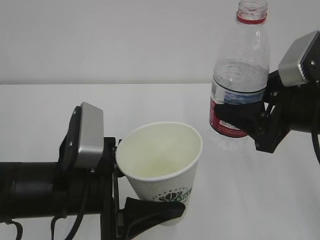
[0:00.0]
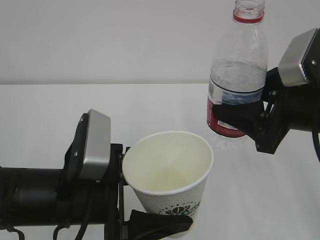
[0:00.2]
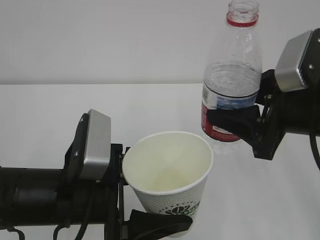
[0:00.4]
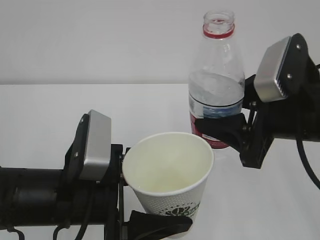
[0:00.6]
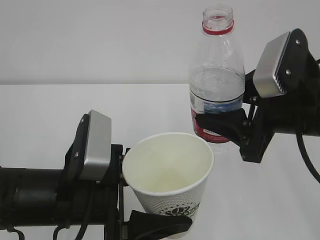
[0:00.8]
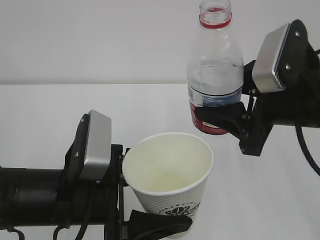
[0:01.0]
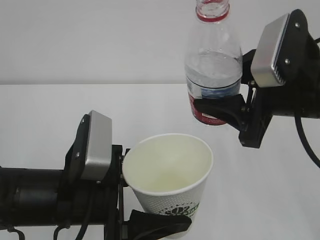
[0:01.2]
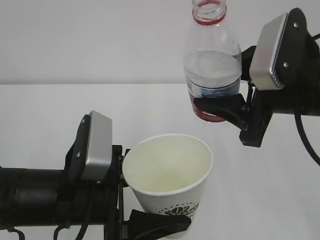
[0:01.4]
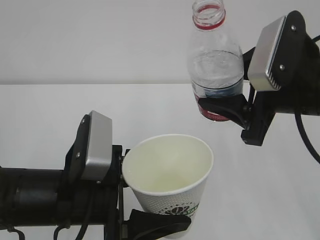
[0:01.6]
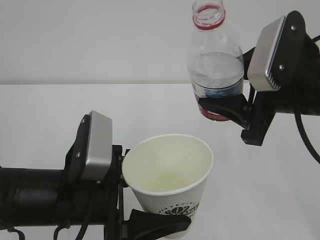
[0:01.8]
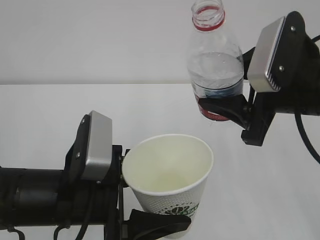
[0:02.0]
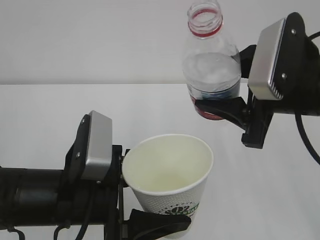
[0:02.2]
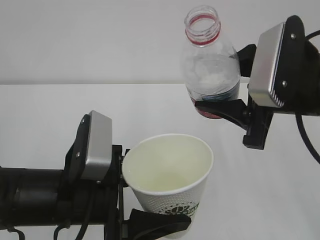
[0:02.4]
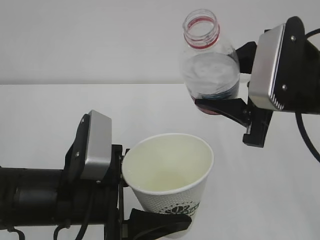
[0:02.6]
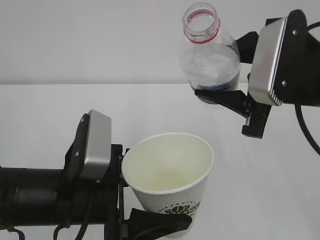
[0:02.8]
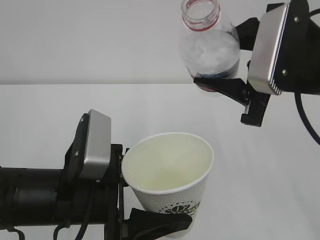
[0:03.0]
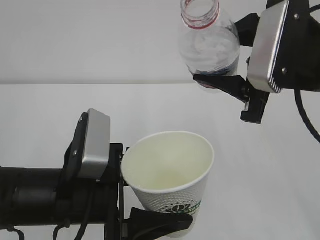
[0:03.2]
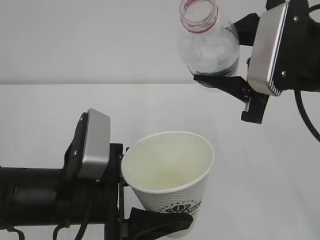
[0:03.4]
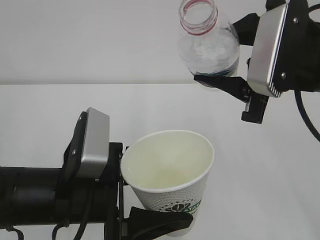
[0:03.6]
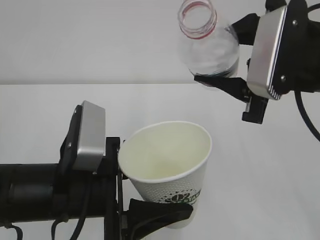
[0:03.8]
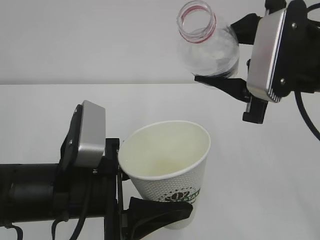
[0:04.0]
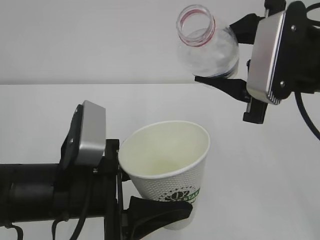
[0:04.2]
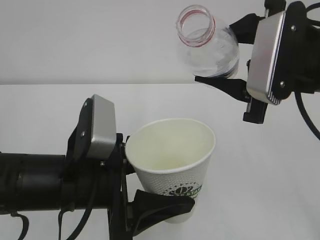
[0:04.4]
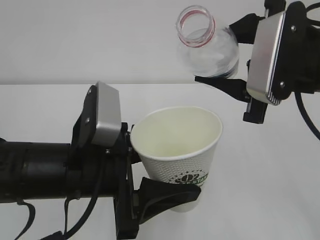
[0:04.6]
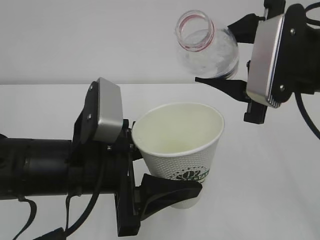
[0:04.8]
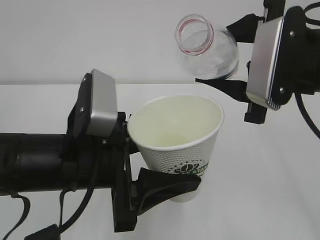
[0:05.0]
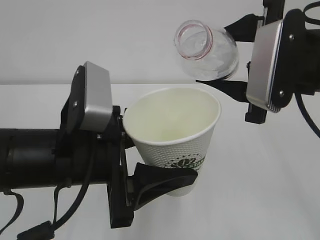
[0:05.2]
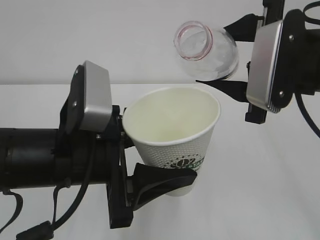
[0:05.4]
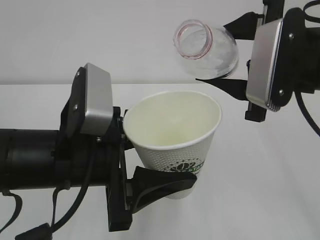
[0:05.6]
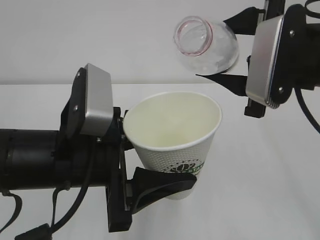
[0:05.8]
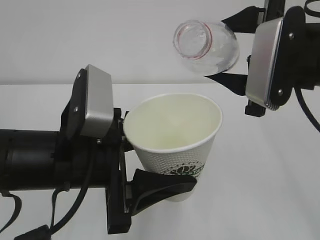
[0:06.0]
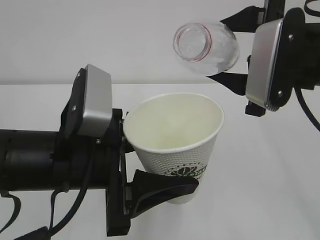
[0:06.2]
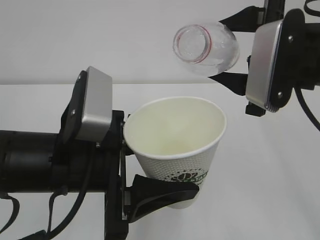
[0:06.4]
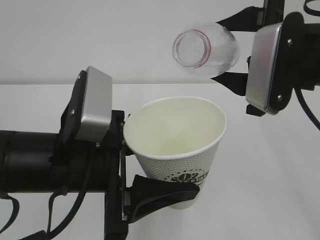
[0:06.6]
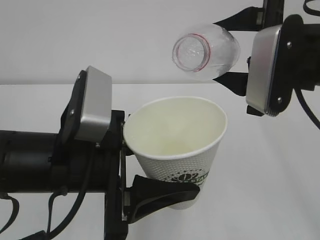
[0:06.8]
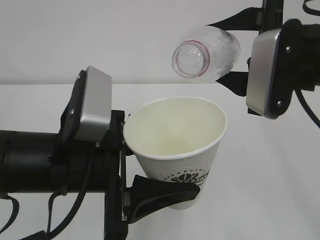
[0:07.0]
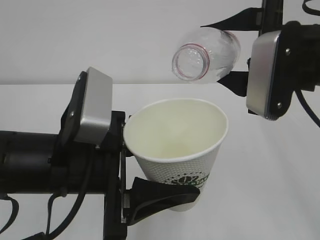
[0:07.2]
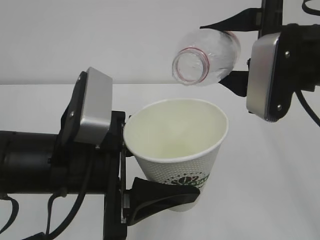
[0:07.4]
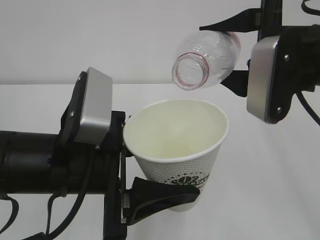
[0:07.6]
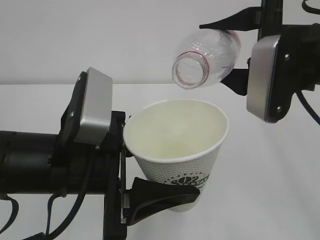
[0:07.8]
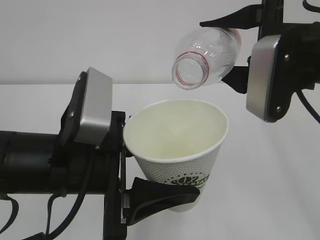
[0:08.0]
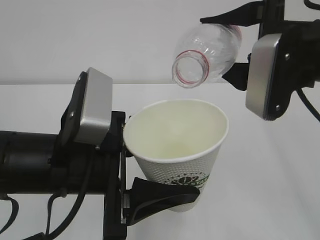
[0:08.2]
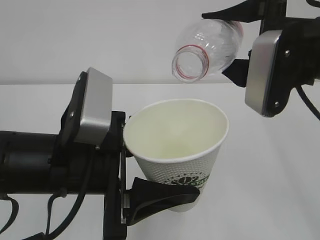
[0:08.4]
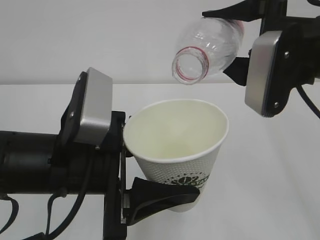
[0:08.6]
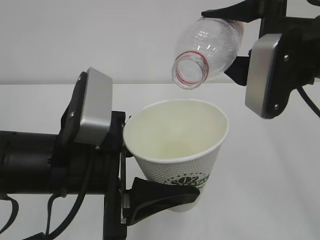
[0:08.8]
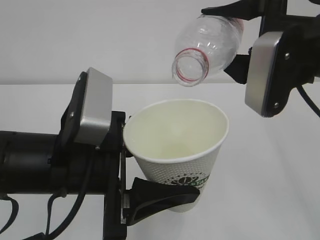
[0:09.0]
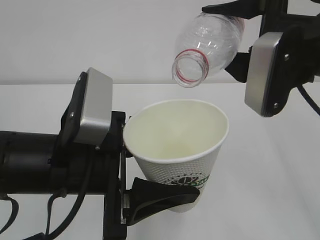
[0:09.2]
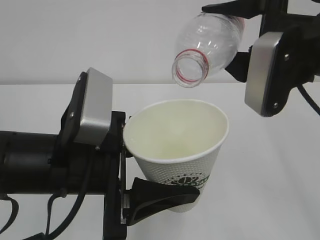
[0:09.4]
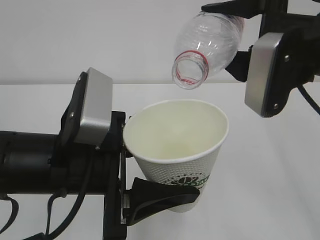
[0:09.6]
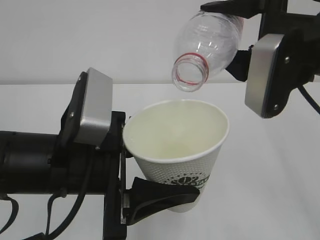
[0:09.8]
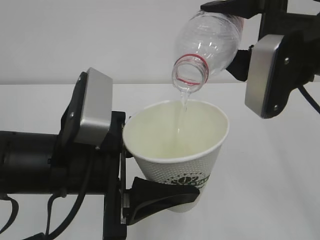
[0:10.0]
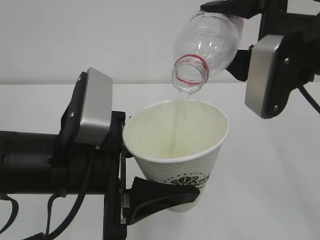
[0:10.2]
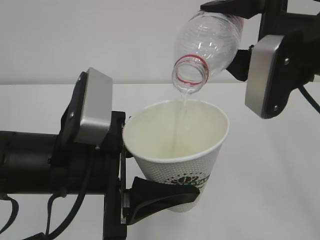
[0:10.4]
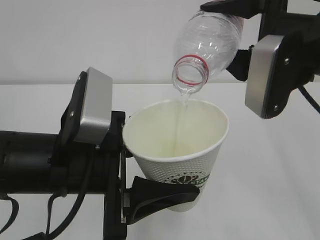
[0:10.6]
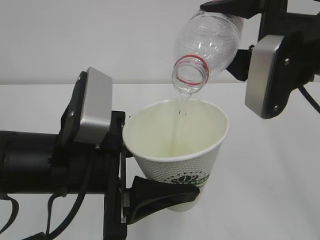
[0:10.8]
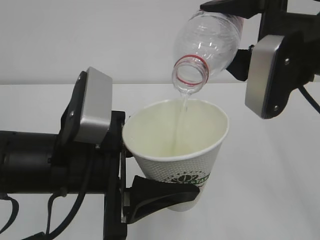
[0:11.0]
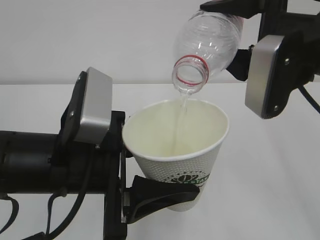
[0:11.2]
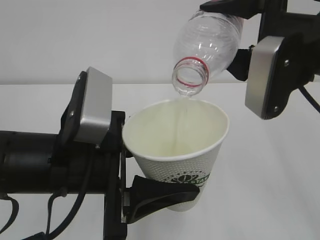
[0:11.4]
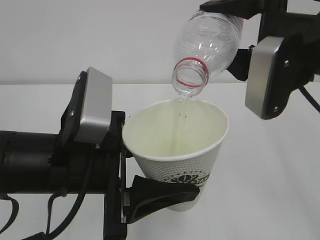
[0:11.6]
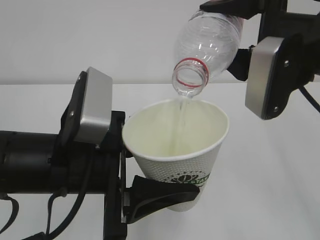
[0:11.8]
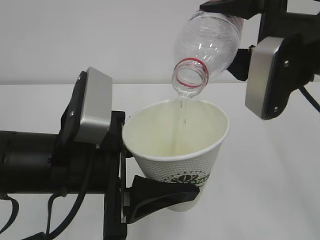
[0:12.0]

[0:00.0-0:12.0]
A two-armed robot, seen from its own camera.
0:01.6 to 0:03.0: The grippers make only small movements.
0:03.0 to 0:04.4: The grippers move only a little.
0:06.0 to 0:09.0: The grippers stay close to where they were, moving slightly.
0:09.0 to 0:10.4: The two grippers keep their place.
0:10.4 to 0:12.0: Both grippers stay put.

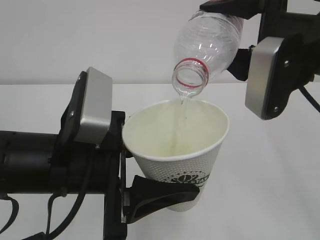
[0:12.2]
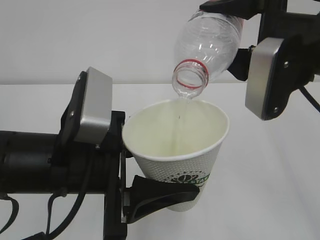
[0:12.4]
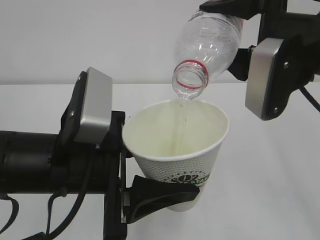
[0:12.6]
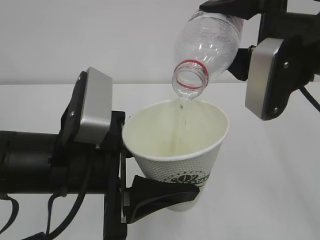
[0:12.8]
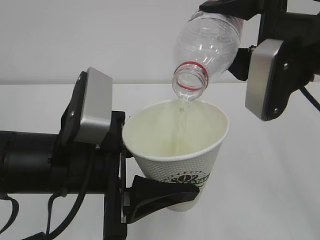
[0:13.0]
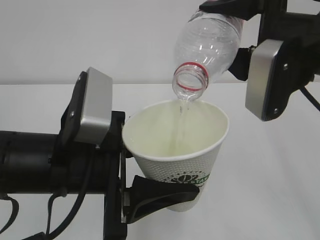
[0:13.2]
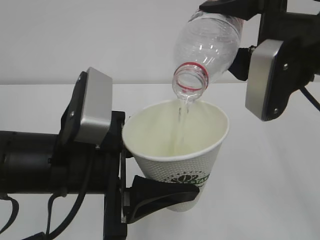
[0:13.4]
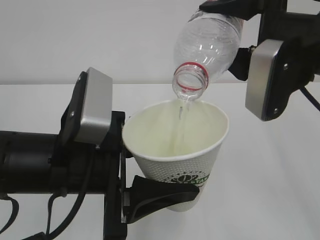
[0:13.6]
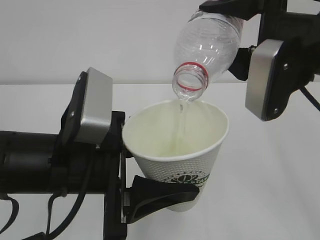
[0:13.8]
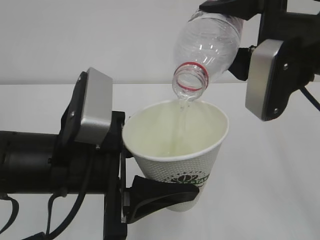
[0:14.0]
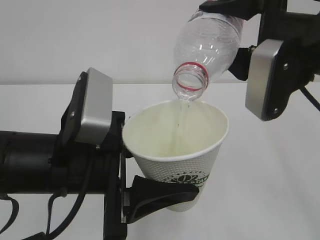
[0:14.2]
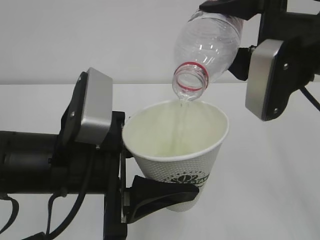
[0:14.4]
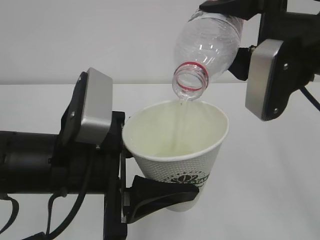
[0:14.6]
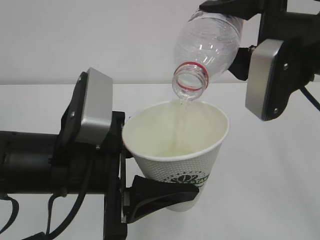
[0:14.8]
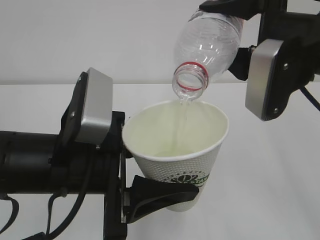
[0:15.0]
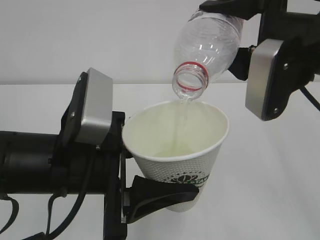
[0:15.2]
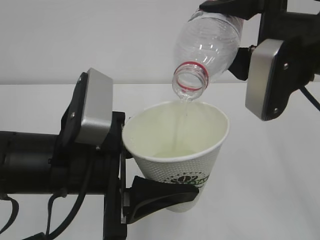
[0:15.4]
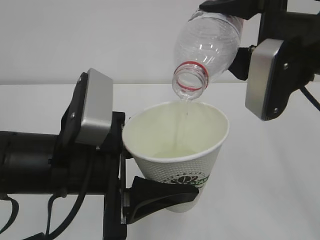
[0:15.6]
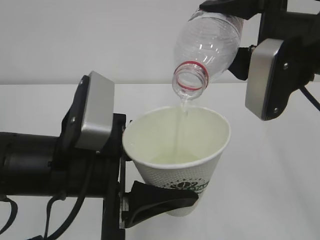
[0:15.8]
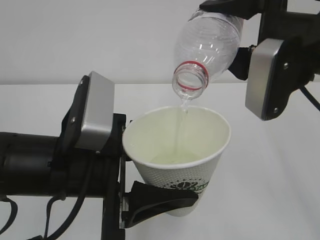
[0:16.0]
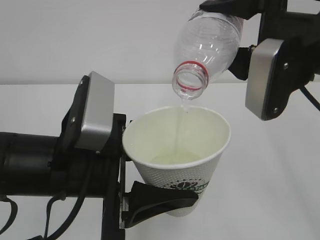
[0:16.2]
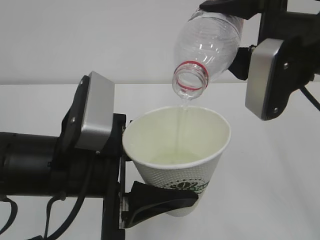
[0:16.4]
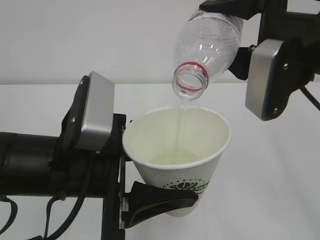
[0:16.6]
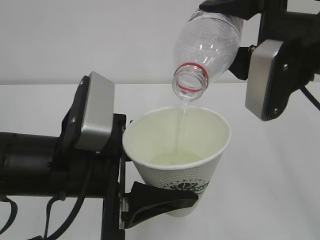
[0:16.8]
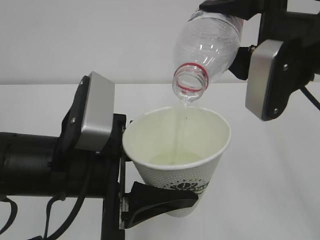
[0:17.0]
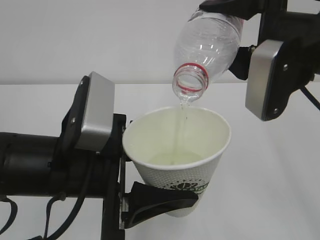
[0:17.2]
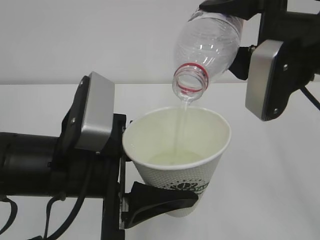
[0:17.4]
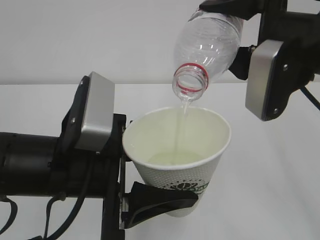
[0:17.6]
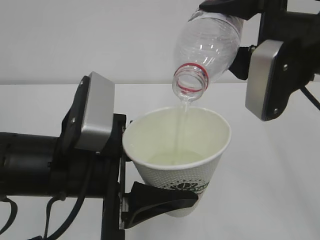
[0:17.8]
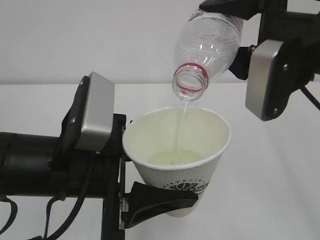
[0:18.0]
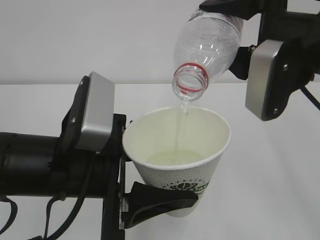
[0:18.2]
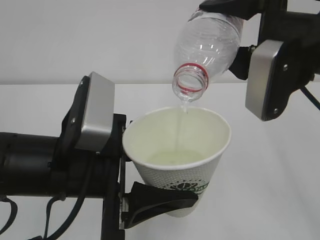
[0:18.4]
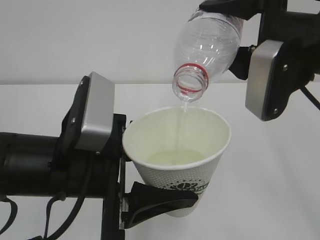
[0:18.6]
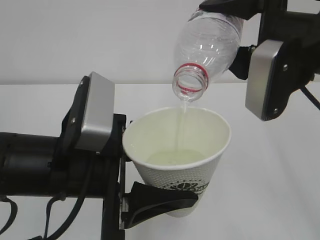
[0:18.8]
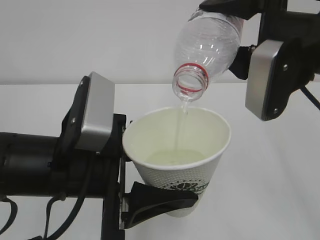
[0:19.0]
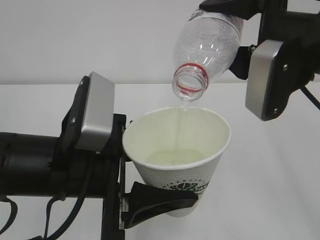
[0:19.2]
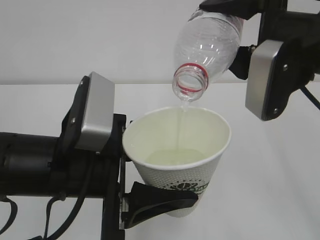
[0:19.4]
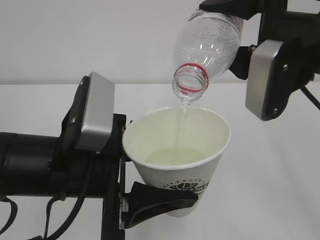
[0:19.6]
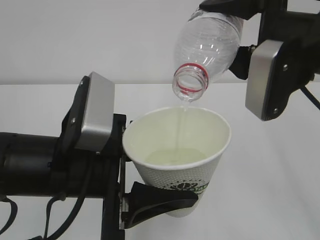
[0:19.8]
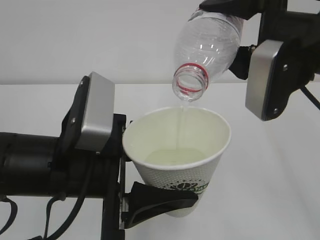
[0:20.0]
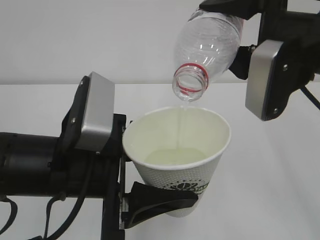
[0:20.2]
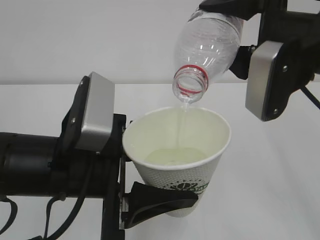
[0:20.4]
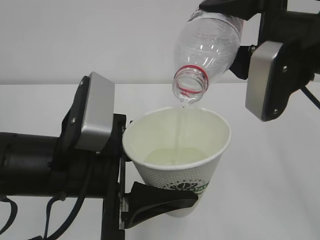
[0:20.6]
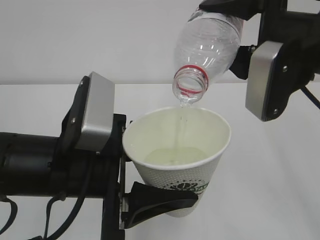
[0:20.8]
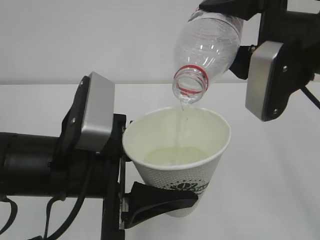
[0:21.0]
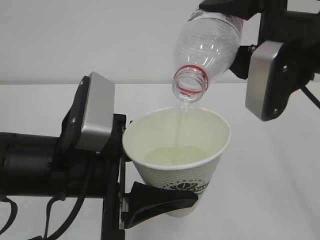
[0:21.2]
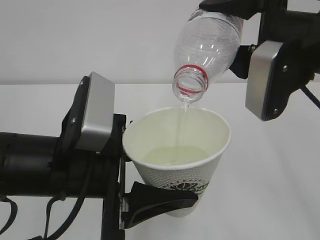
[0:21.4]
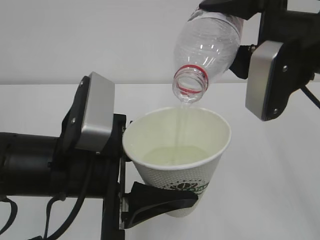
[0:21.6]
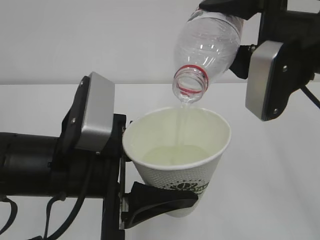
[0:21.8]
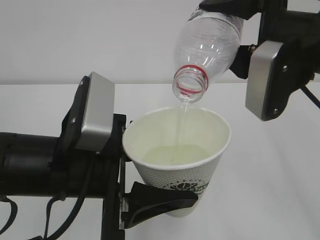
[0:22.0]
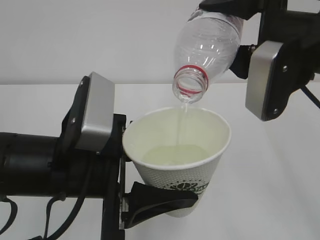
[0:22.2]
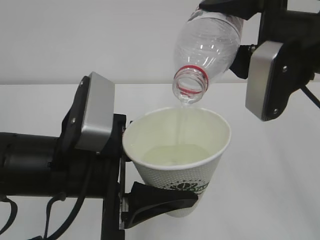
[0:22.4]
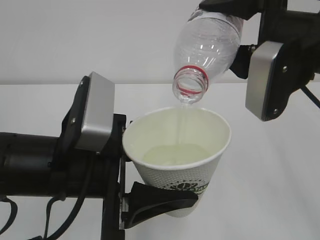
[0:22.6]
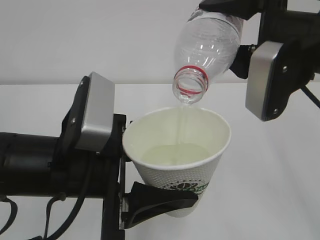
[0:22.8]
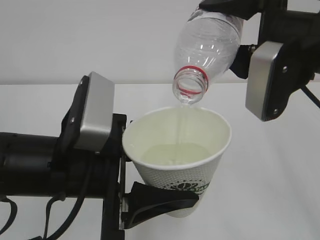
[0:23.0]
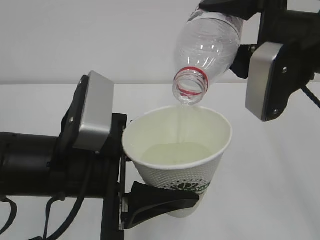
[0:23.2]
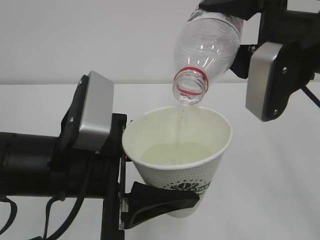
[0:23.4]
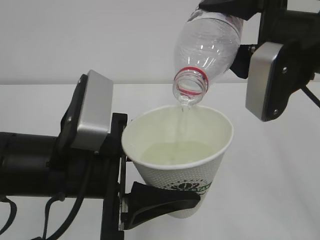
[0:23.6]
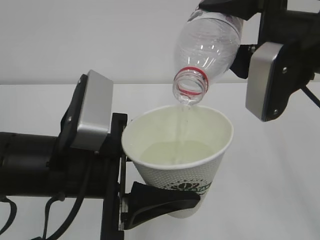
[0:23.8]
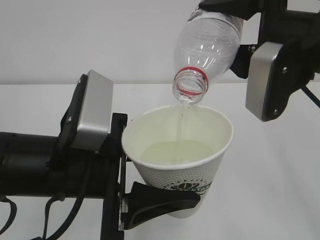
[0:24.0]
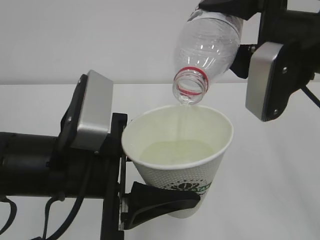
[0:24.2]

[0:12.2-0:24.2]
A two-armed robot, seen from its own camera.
0:12.2 to 0:22.6: Neither gripper changes place.
0:22.6 to 0:24.2: Both grippers stay about where they are.
